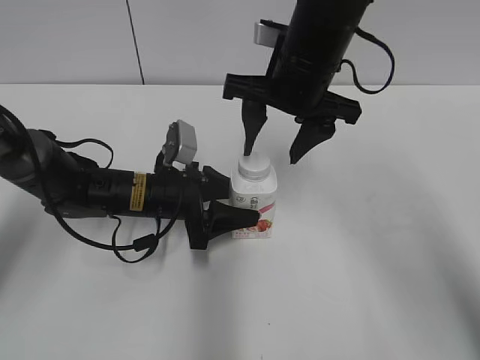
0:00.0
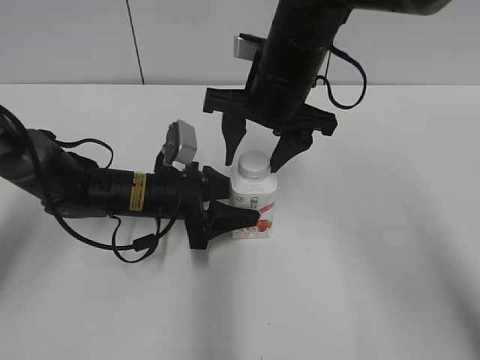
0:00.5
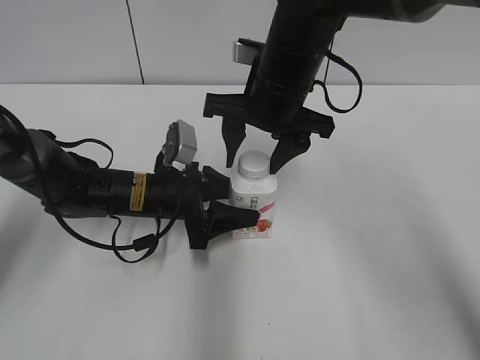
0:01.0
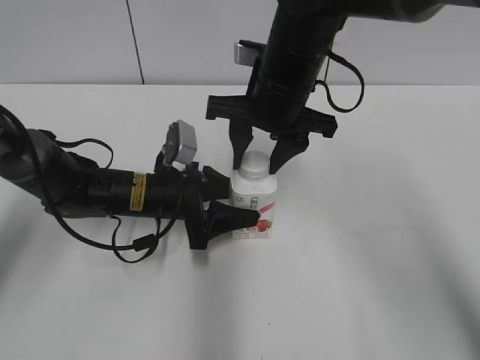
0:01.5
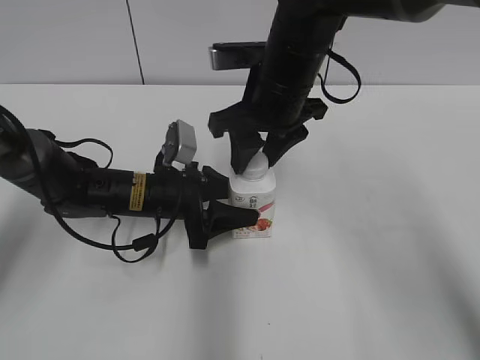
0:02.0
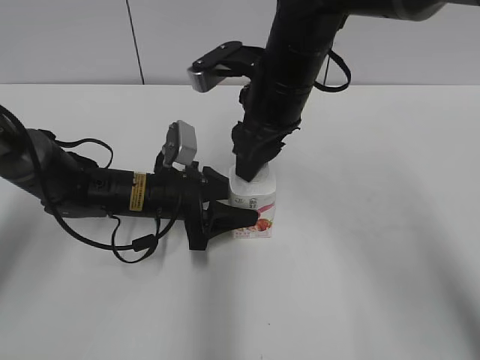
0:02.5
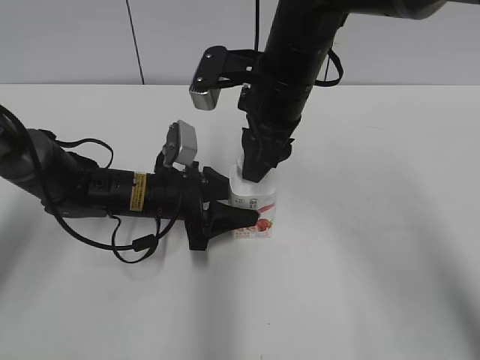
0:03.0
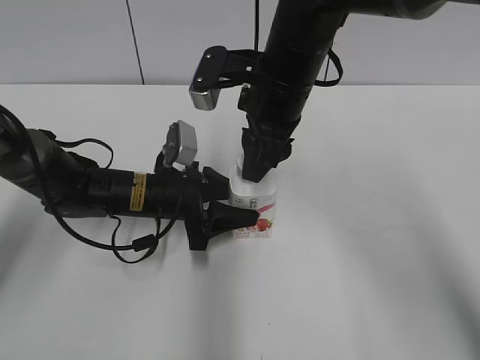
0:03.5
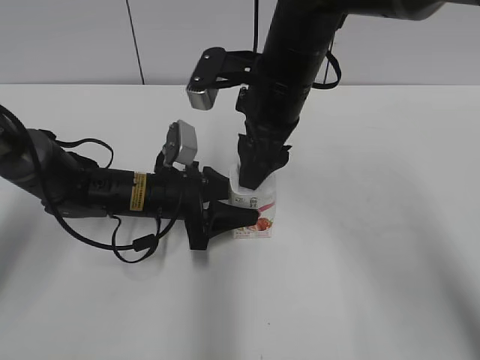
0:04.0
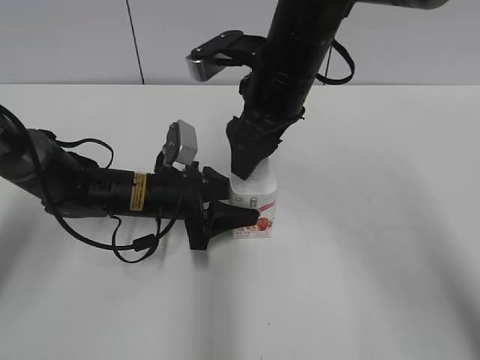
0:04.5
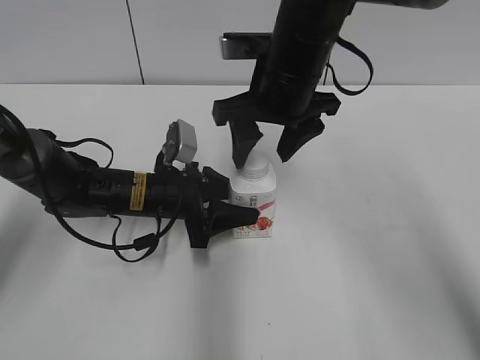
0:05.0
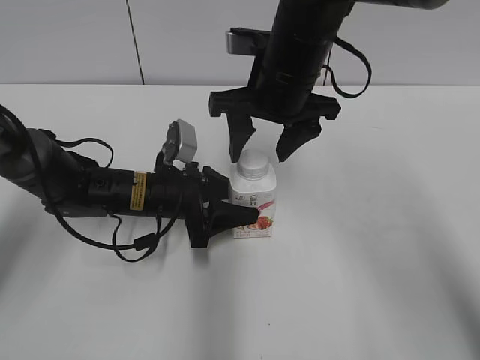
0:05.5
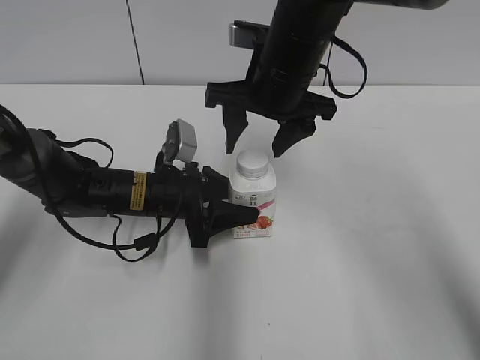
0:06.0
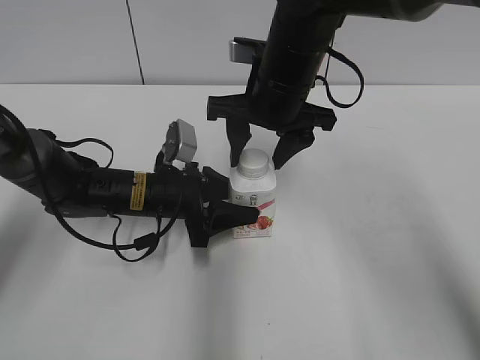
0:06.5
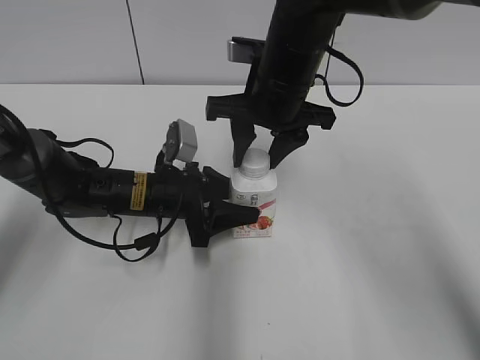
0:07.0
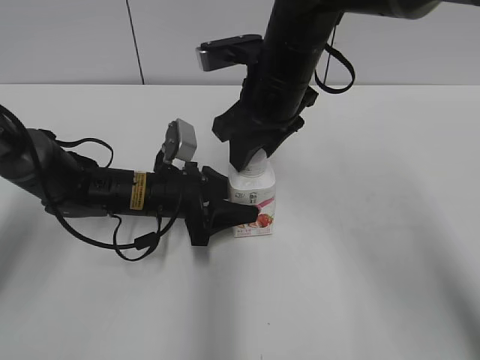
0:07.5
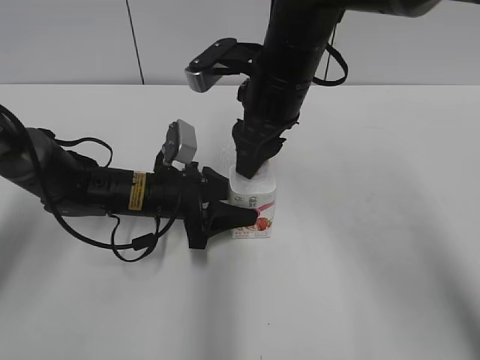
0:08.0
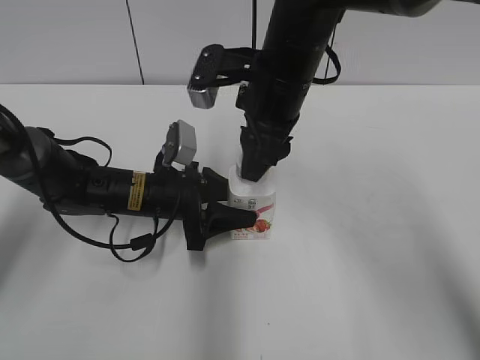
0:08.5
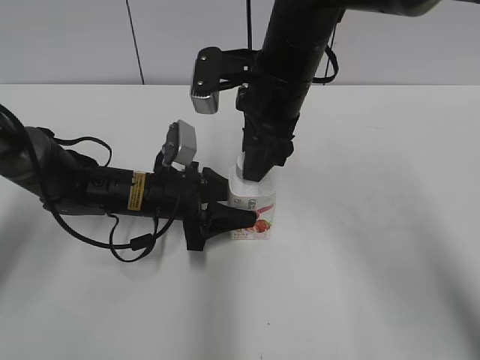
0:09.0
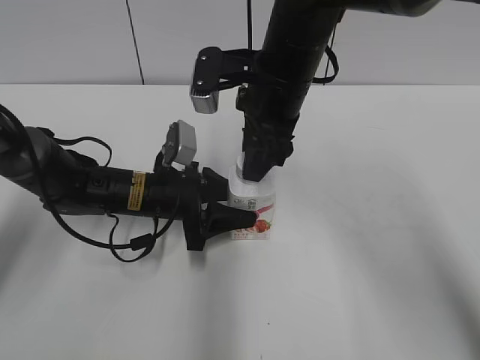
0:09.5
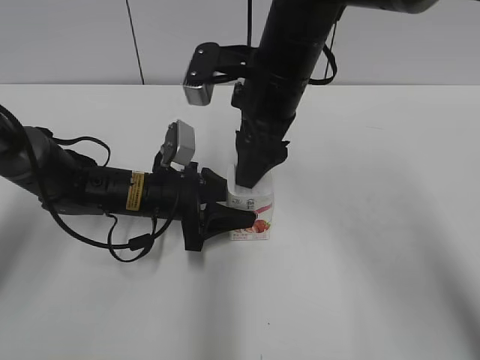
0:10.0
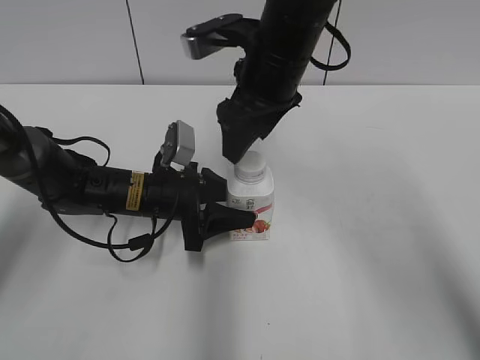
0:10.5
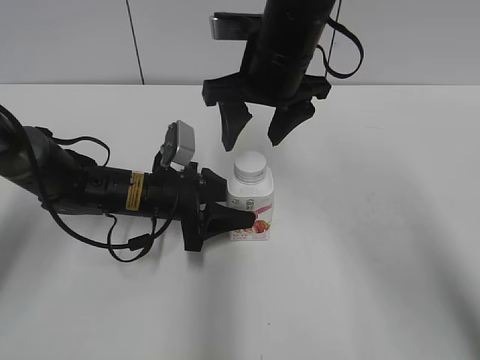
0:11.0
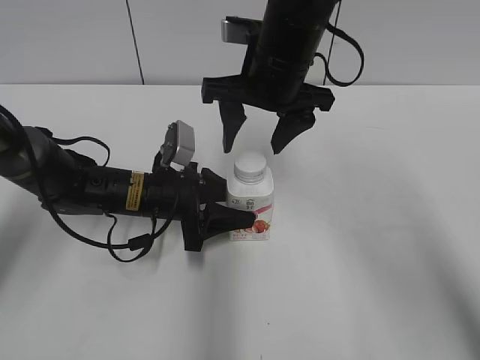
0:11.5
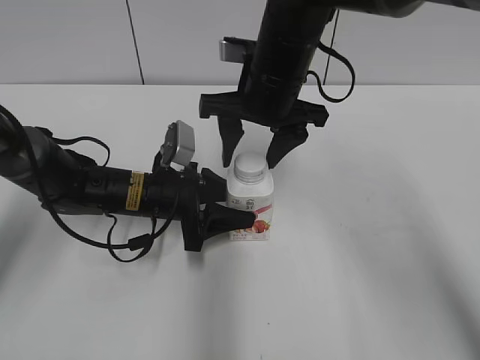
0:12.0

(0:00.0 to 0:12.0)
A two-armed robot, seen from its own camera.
0:00.0 - 0:02.0: The right gripper closes up.
0:02.0 - 0:04.0: The right gripper opens.
0:06.0 - 0:08.0: The right gripper closes up.
0:08.0 - 0:10.0: The right gripper opens up.

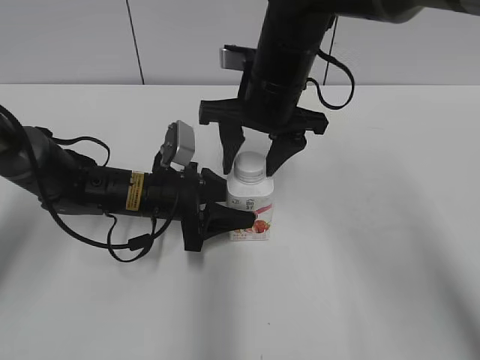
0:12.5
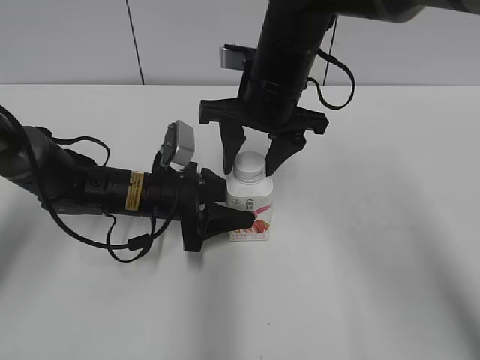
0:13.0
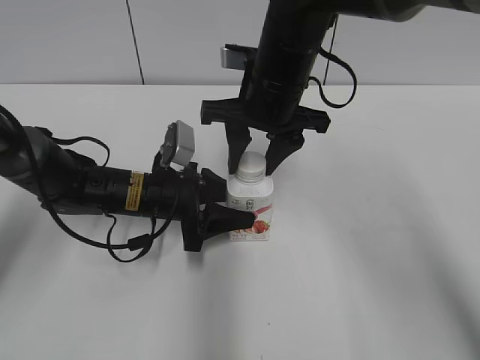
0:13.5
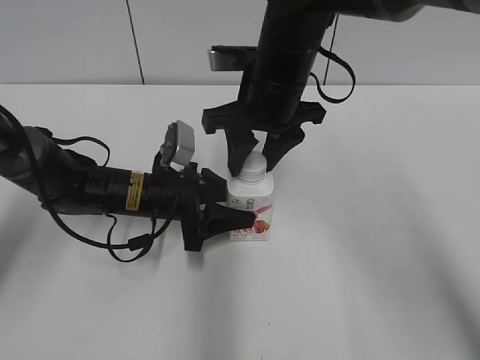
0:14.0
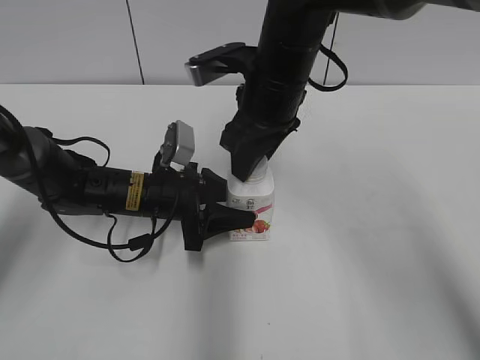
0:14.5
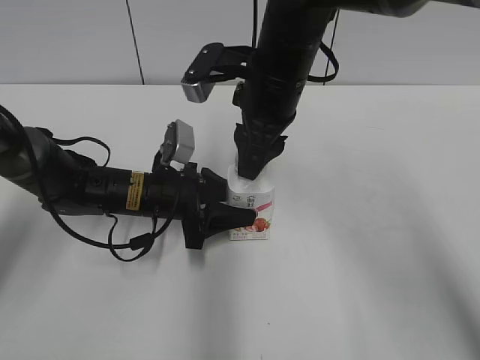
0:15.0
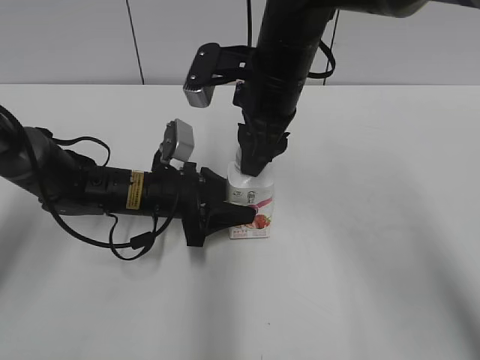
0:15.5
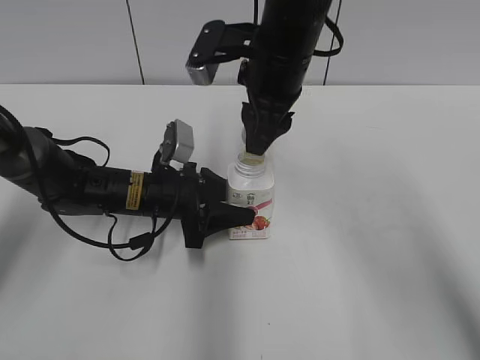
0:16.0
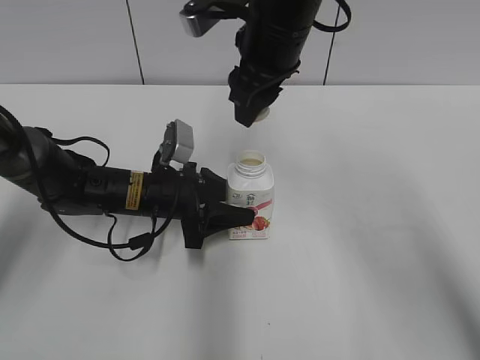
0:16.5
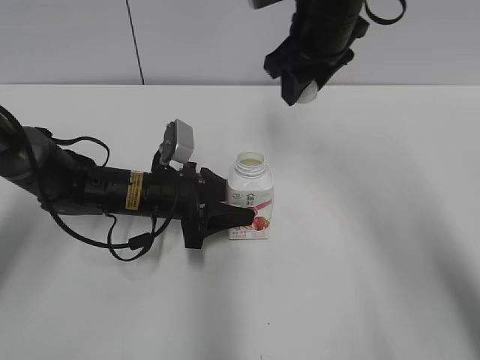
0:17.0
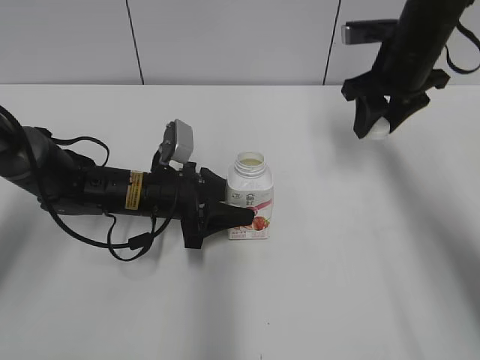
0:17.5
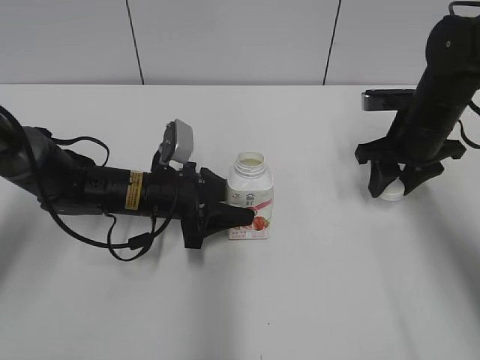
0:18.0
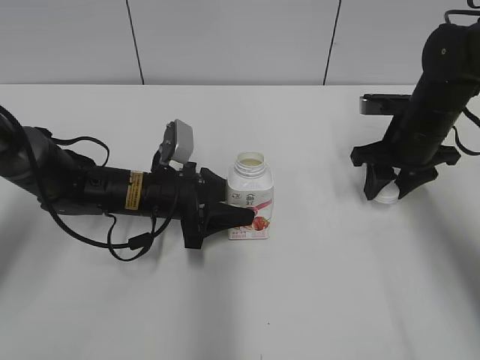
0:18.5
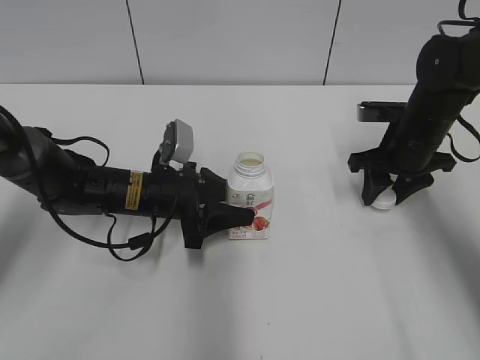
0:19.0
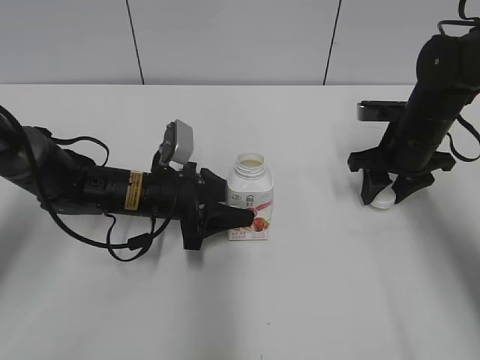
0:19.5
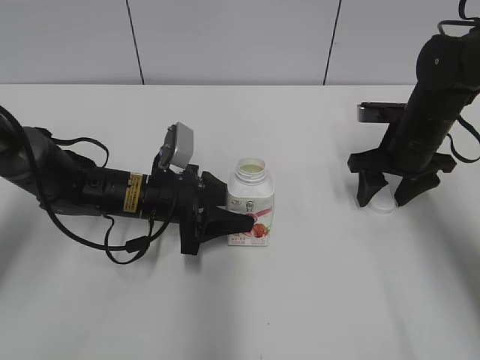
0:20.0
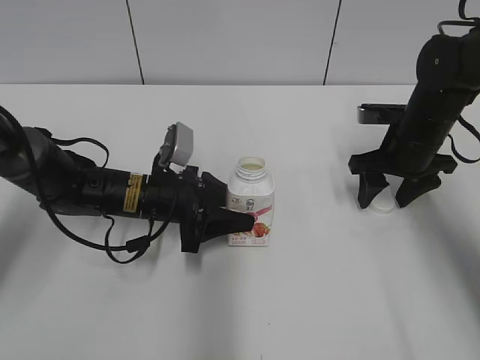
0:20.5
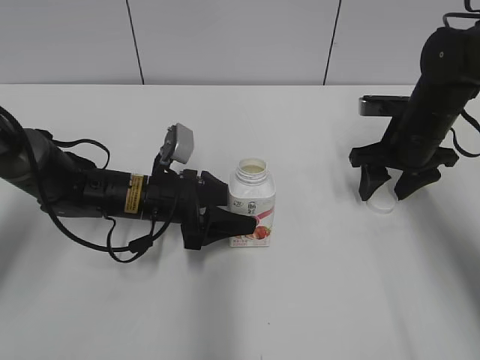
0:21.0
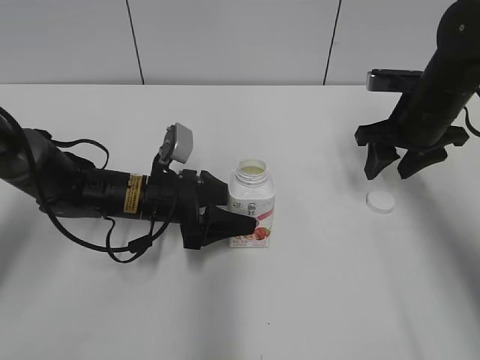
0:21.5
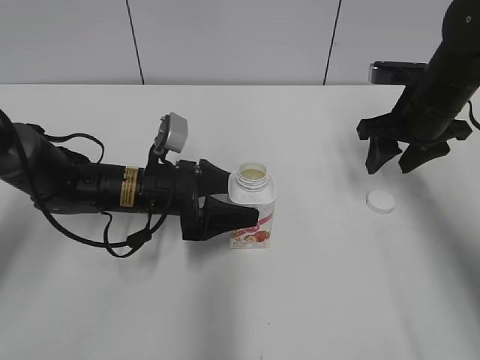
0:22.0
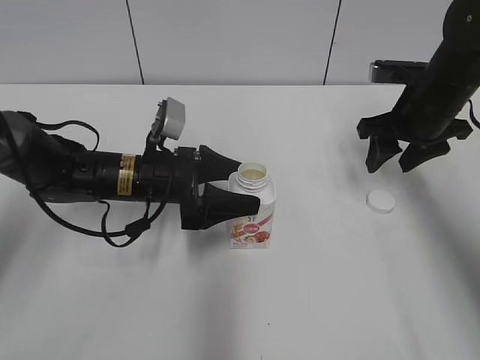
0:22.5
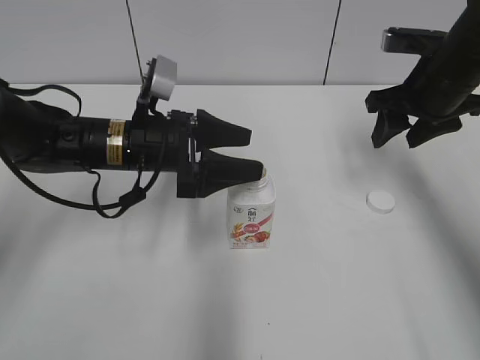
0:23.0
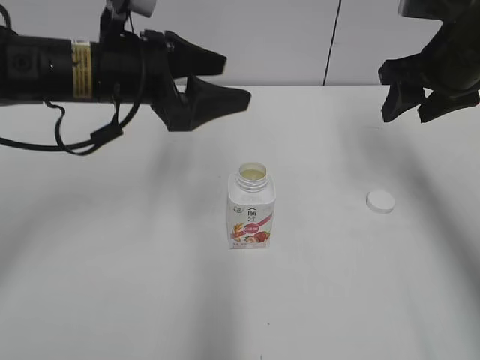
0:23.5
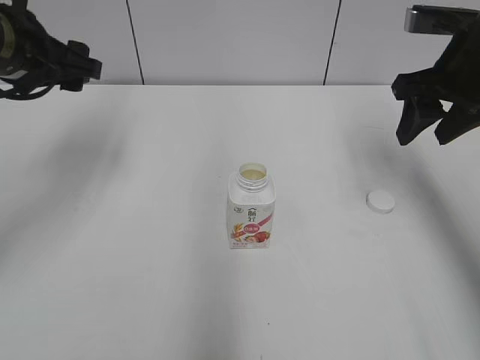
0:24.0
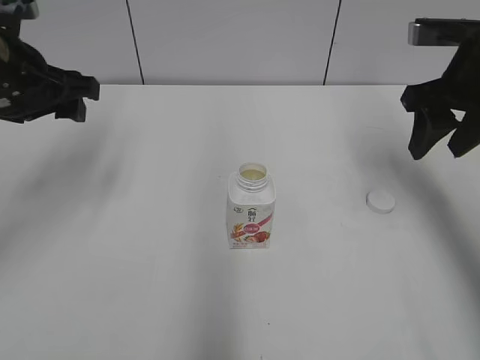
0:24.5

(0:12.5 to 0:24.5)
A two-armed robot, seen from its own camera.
Step, 0:12.5 - 0:15.5: Fix the Yili Changqing on the left.
Step, 0:16.0 - 0:20.0: Place the bottle cap on the right.
Step, 0:20.5 - 0:22.0: Place the Yili Changqing with the left hand.
0:12.5 - 0:14.5: The right gripper closes.
0:14.5 - 0:16.5: The right gripper shifts by some 5 cm.
0:16.5 - 0:18.5: The right gripper travels to the right and downward by some 25 cm.
0:18.5 - 0:20.5: The right gripper opens.
0:20.5 - 0:22.5: The left gripper opens, while the right gripper shifts about 5 cm upward, and closes its fingers.
0:22.5 - 0:24.5: The left gripper goes roughly 20 cm upward and to the left; the right gripper heads upward, covering about 10 cm.

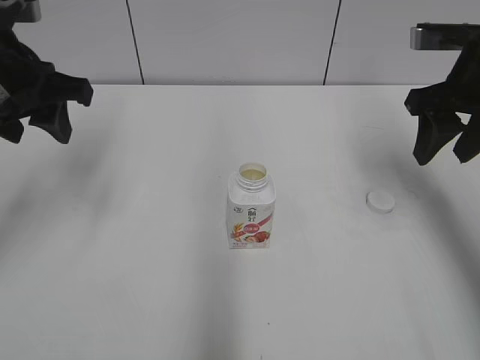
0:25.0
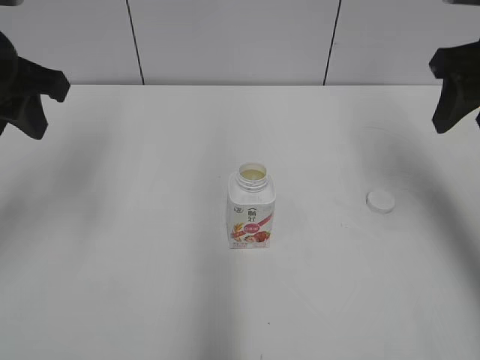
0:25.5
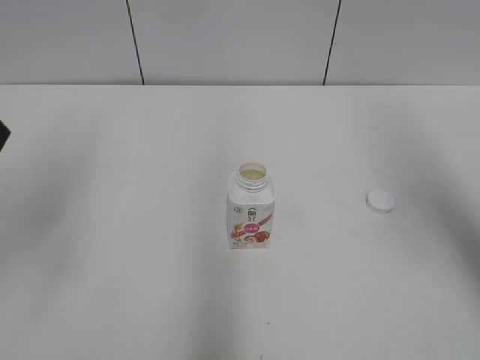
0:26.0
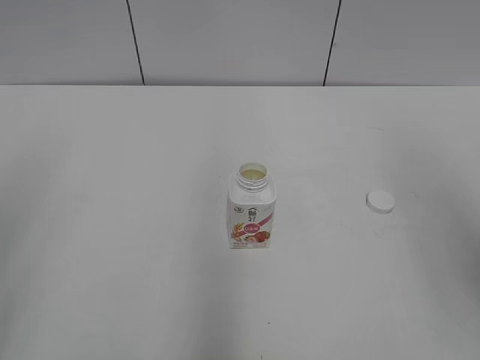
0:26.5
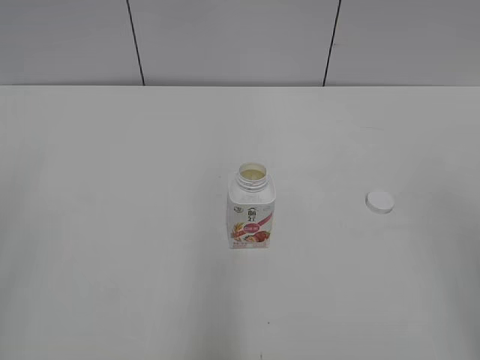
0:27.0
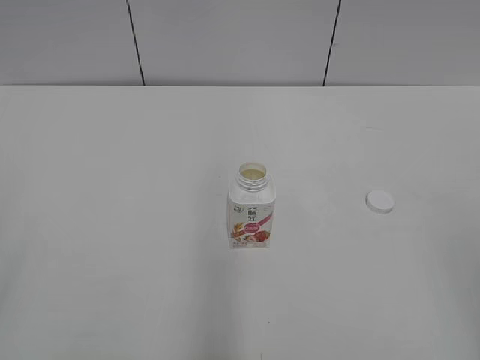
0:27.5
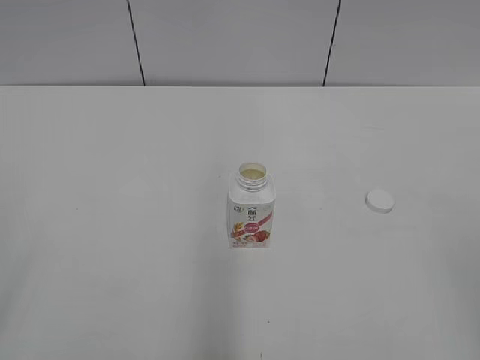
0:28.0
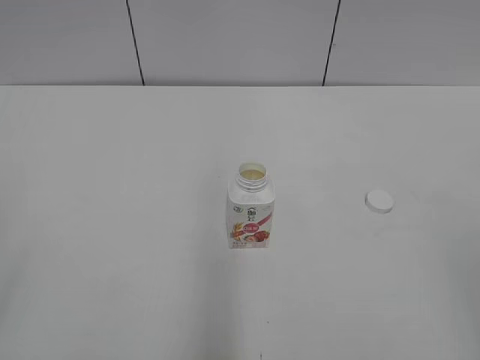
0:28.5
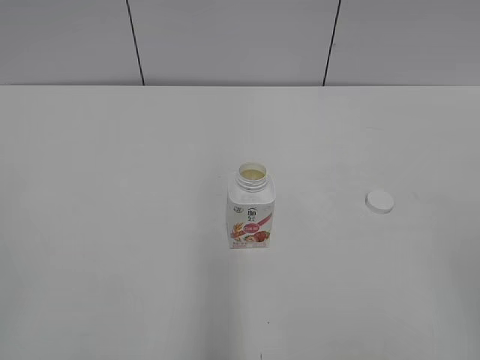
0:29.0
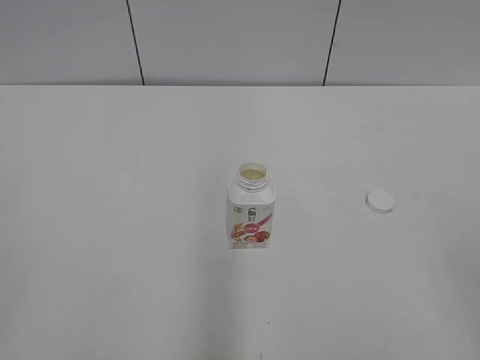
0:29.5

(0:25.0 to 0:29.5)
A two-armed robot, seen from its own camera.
0:25.0 - 0:27.0: The two grippers go approximately 25 cm backward. The left gripper closes up.
